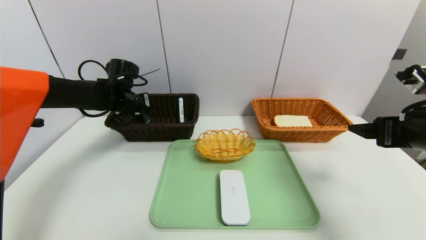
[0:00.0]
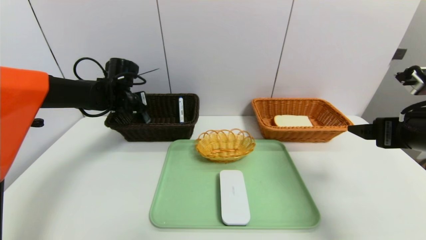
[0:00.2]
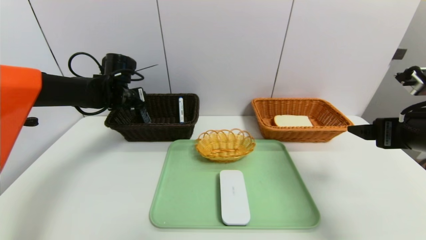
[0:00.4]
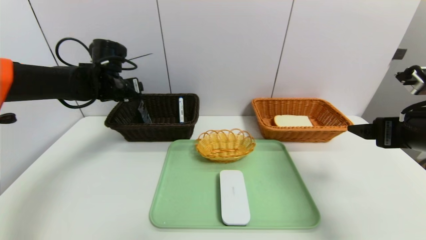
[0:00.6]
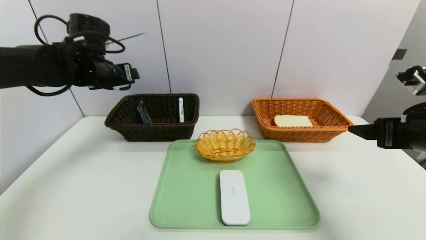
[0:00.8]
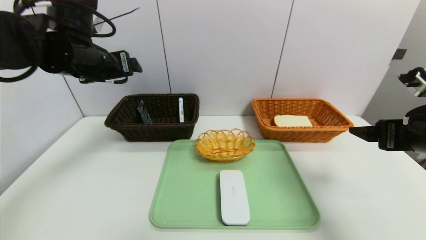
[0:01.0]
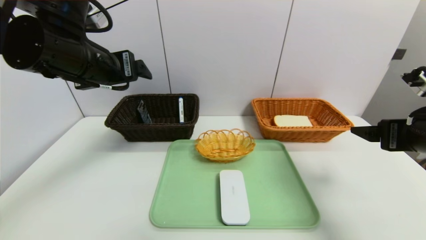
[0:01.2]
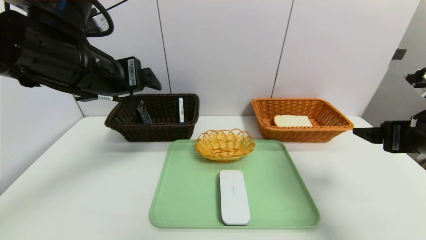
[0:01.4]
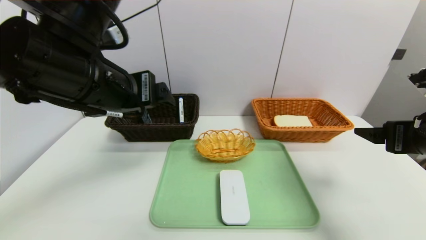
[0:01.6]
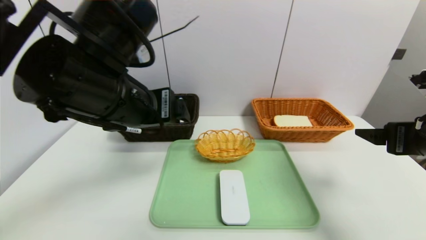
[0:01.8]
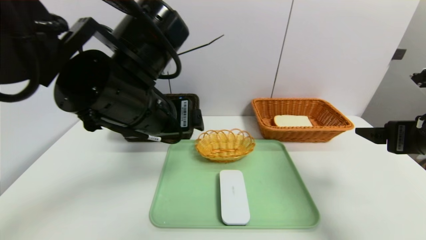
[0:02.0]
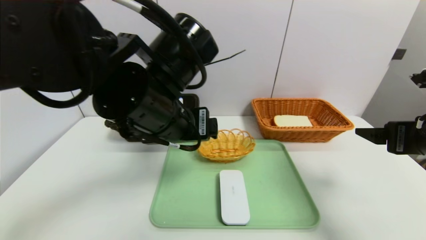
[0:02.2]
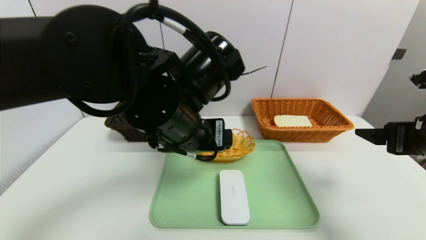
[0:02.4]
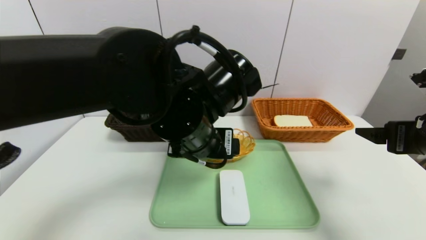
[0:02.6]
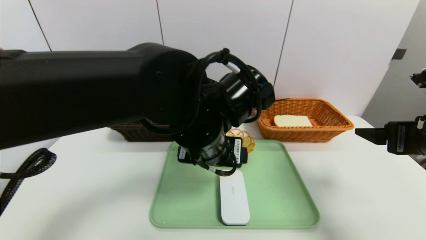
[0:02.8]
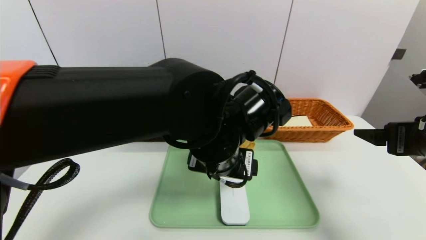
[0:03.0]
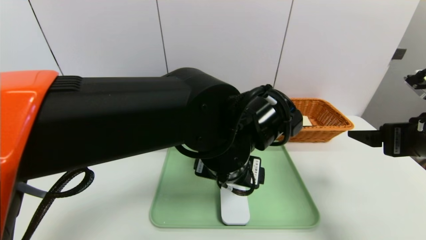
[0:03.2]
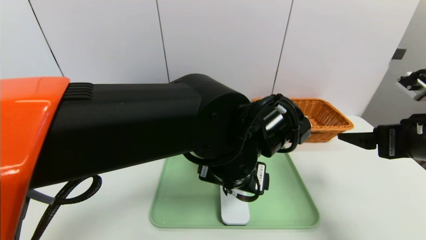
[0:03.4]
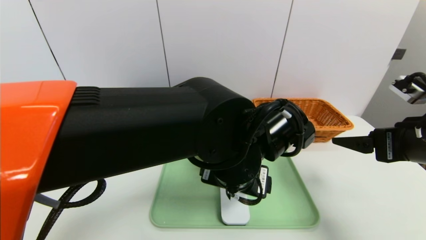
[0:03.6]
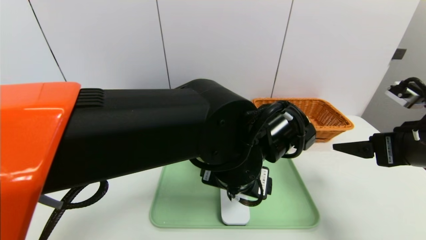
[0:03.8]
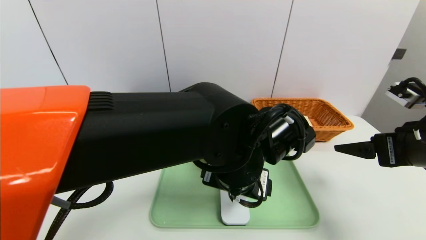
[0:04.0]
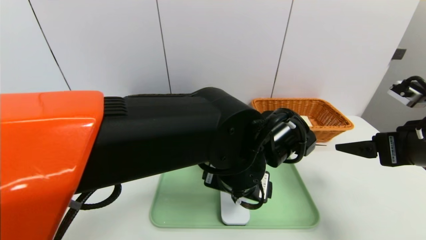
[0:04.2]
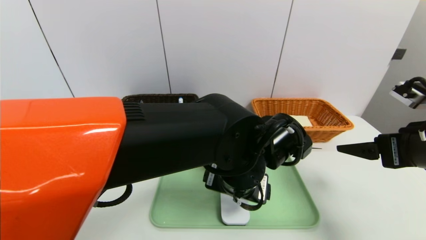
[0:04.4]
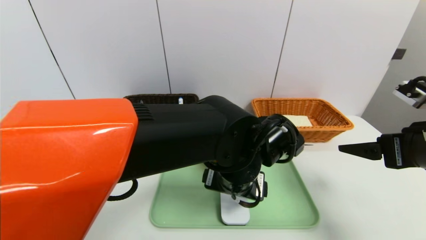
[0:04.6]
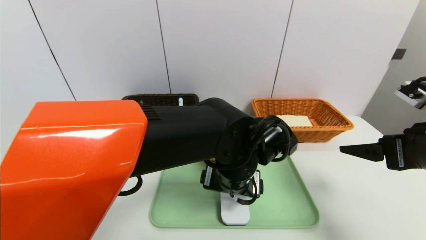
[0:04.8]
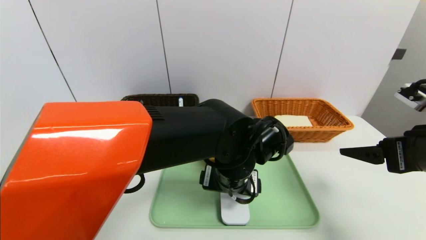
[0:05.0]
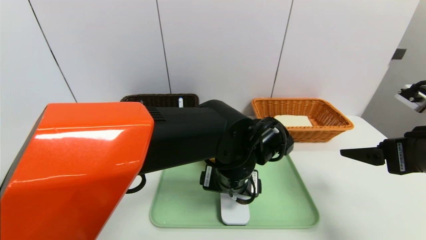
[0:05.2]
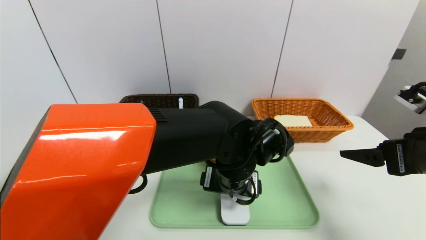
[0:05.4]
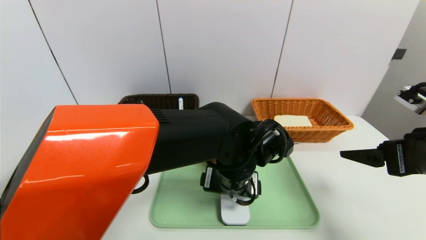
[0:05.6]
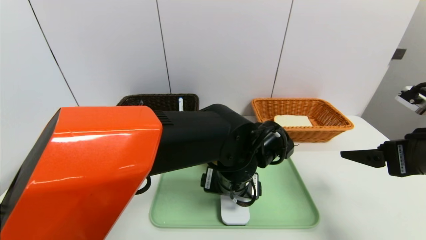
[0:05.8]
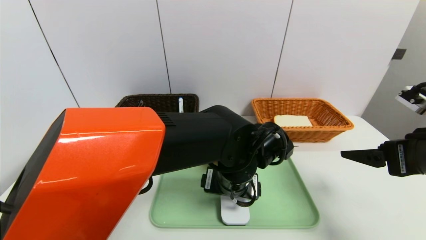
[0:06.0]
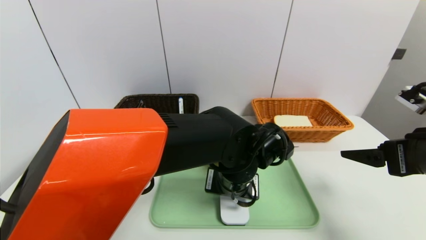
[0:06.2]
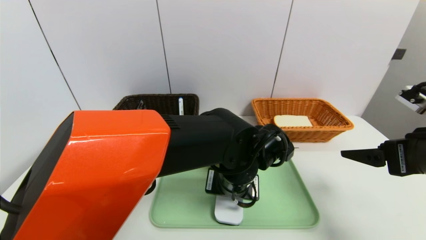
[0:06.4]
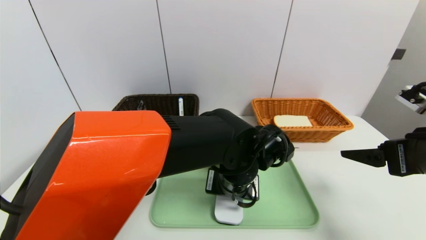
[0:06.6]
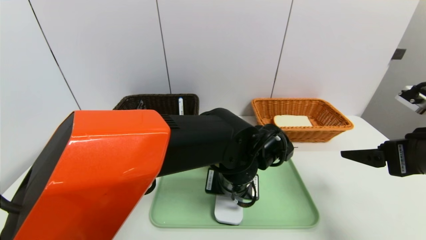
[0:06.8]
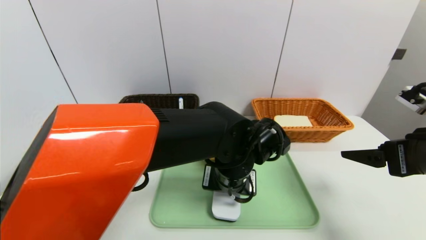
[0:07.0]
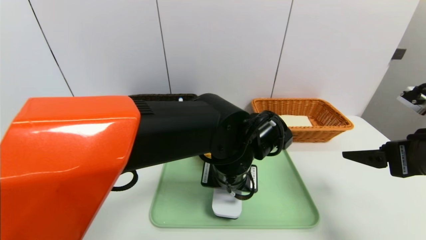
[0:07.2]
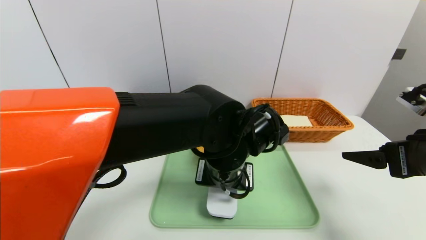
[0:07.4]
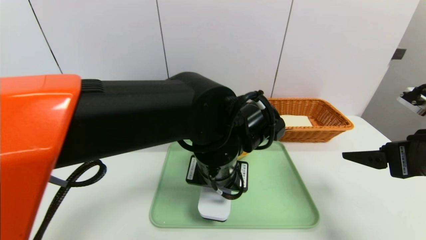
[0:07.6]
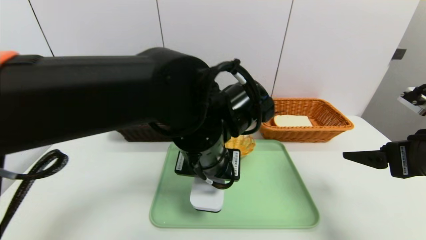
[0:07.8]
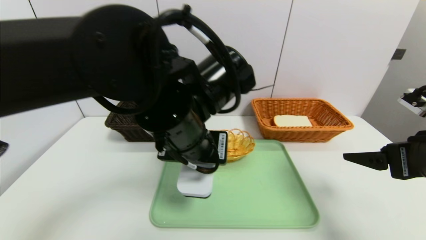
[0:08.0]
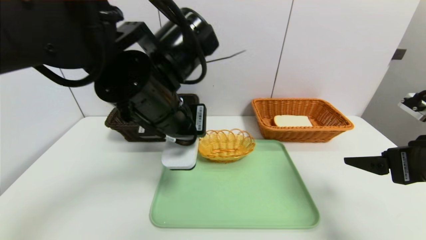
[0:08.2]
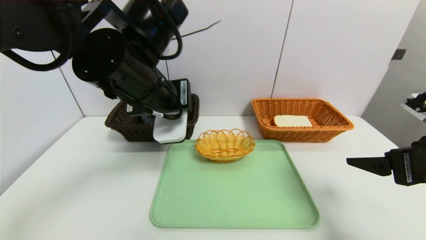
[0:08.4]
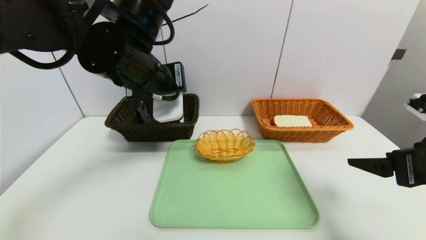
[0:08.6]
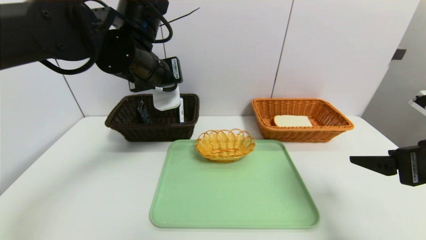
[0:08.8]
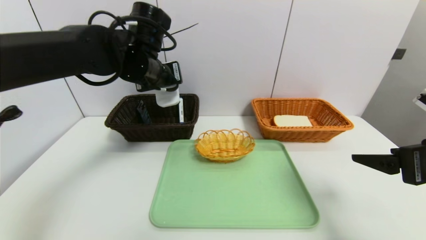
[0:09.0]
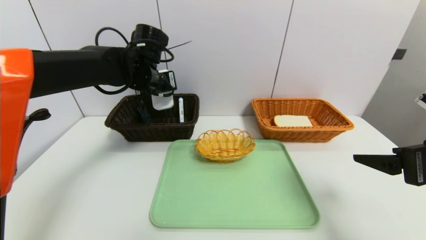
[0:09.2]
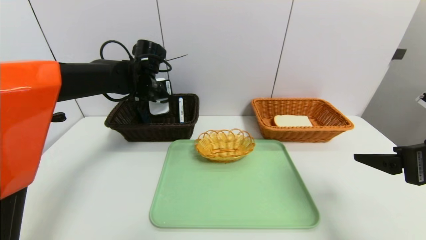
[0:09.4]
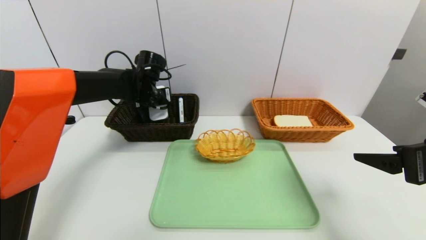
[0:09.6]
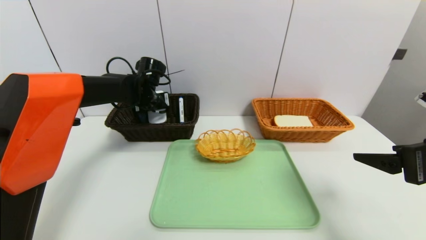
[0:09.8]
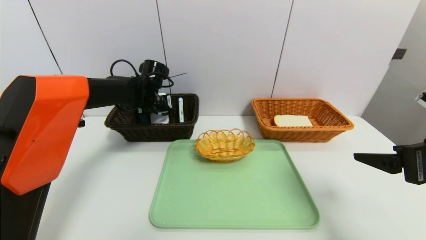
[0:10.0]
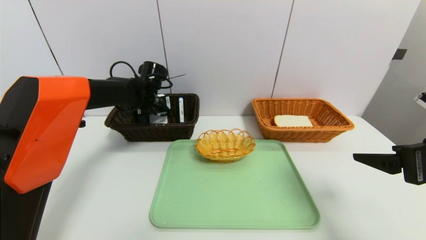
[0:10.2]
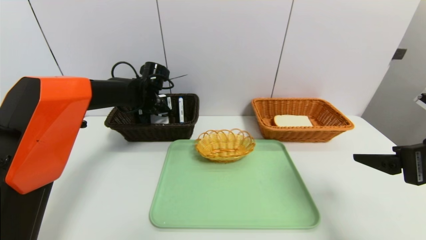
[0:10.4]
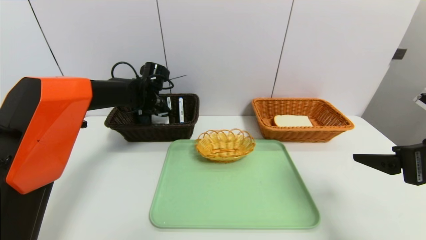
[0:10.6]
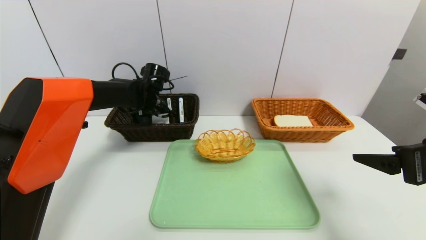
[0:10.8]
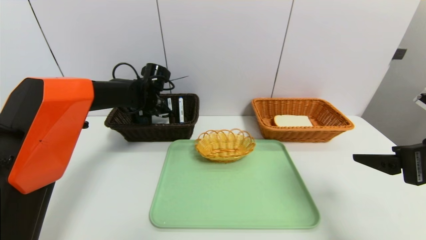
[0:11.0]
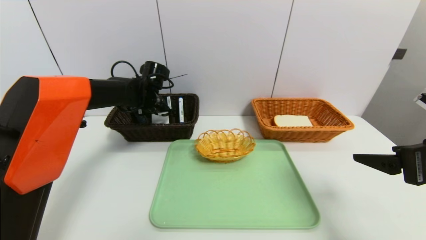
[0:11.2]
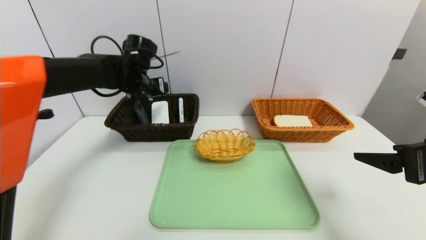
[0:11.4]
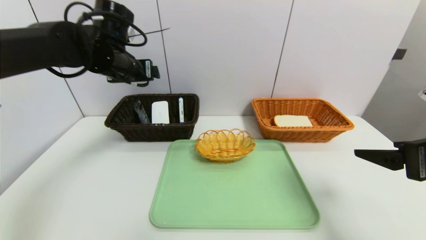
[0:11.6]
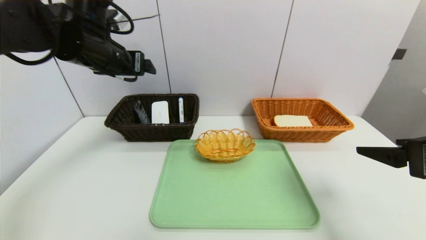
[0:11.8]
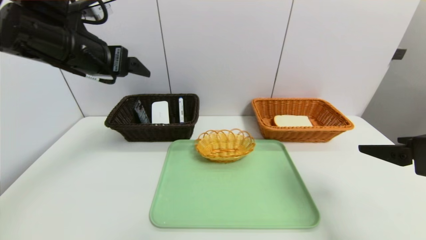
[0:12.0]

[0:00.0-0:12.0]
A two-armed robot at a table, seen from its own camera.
Task of the whole recording: place the food in the right basket with the right gripper, and place the non food items in the left basket with the left gripper.
Step, 0:00.4 to 0:11.4: Grasp the white eraser and put it in the left basket.
0:00.0 to 0:01.6: The left gripper travels backward and upward by approximately 25 cm, and opens.
0:01.6 to 0:03.0: The left gripper travels to the right and downward by approximately 20 cm.
0:03.0 to 0:04.4: The left gripper shifts by roughly 5 cm.
0:04.4 to 0:06.0: There are only small adjustments of the grippers.
0:06.0 to 0:07.6: The left gripper ends up some 5 cm from where it was, and closes up.
0:07.6 to 0:09.0: The left gripper goes approximately 20 cm to the left, forward and upward.
0:09.0 to 0:10.4: The left gripper moves downward and forward, roughly 15 cm.
0:10.4 to 0:12.0: The left gripper heads backward and upward, covering some 25 cm, and opens.

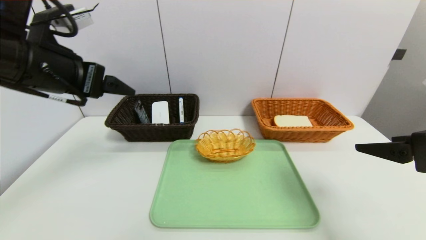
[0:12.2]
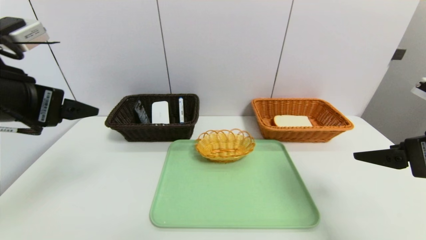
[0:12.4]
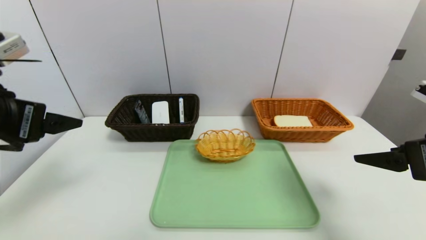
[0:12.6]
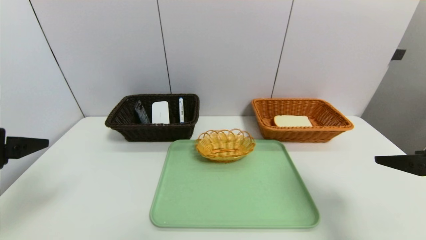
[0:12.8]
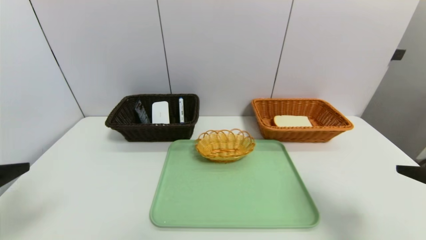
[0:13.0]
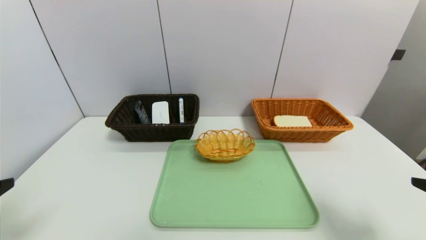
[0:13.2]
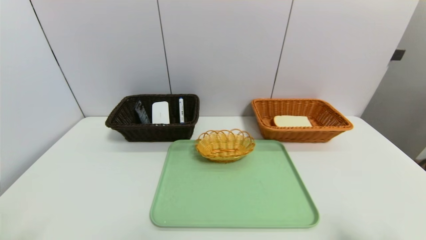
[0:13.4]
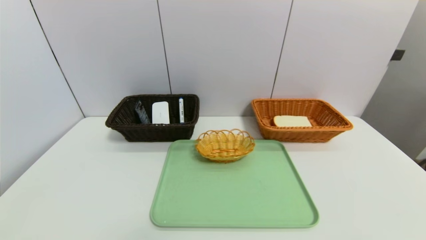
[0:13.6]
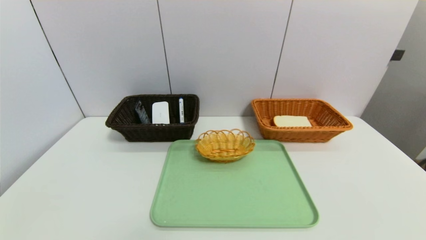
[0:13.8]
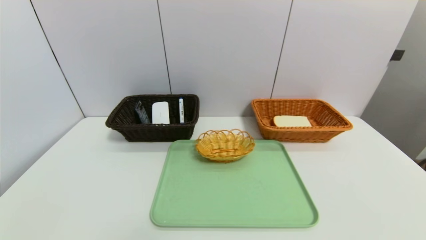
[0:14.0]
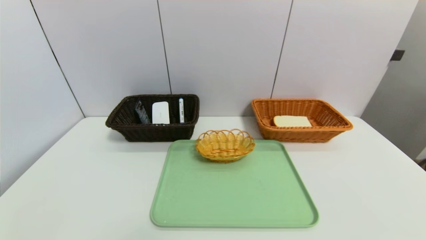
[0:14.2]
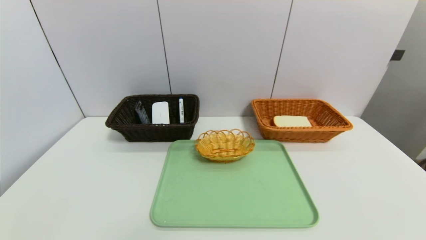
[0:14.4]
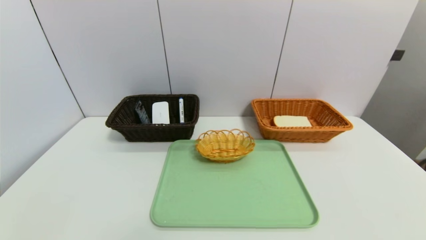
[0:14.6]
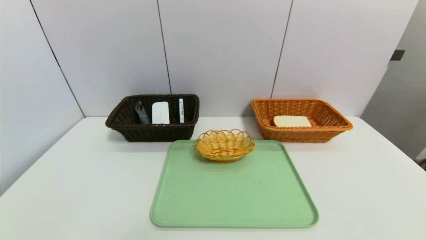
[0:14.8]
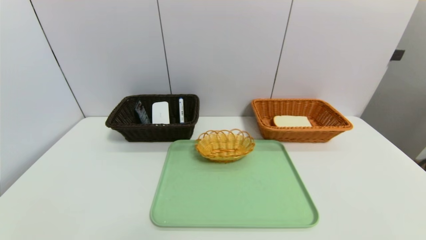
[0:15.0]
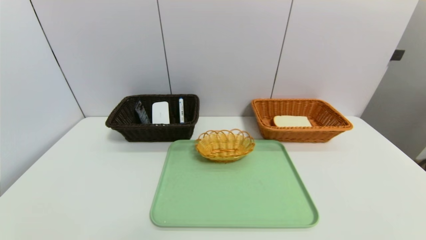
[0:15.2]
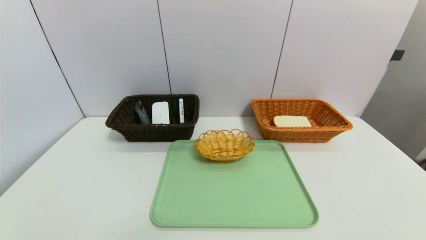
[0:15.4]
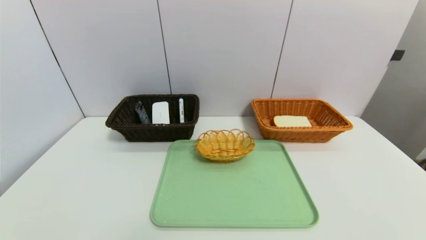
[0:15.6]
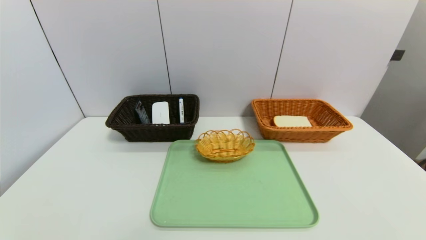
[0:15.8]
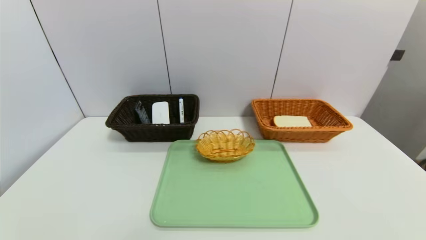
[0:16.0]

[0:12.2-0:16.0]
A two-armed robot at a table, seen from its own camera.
Task of the whole recording: place the food in the right basket with the right gripper, and place the non food items in the left basket with the left gripper.
0:12.2 to 0:13.4: The right gripper is displaced backward and downward by roughly 15 cm. Meanwhile the left gripper heads backward and downward, covering some 25 cm.
